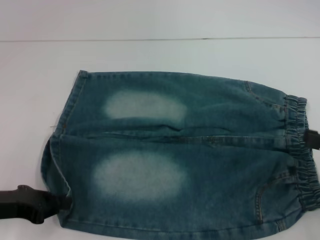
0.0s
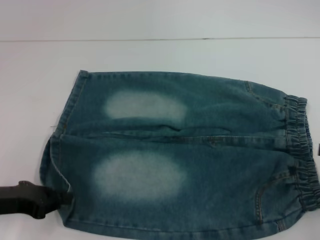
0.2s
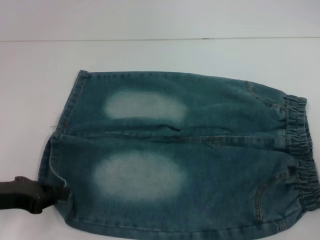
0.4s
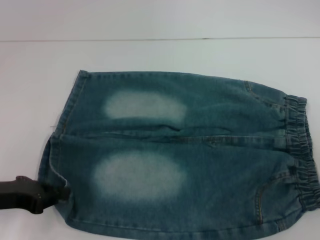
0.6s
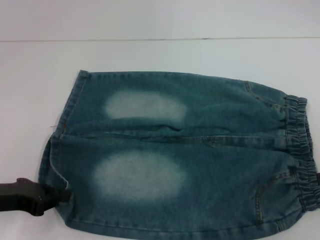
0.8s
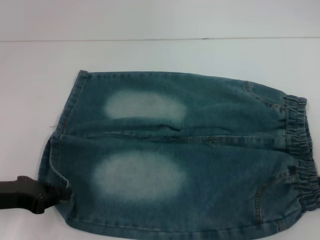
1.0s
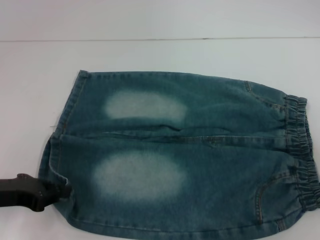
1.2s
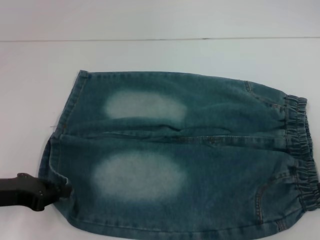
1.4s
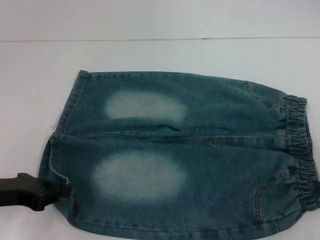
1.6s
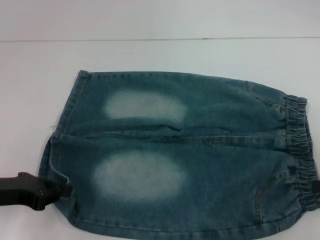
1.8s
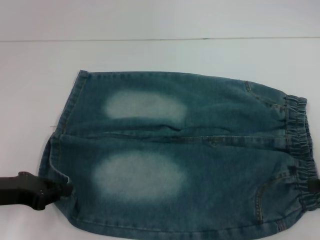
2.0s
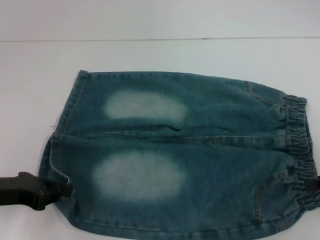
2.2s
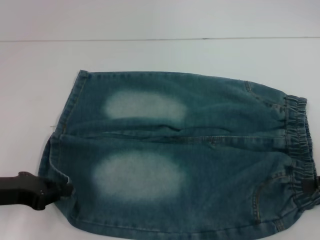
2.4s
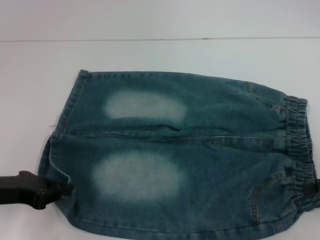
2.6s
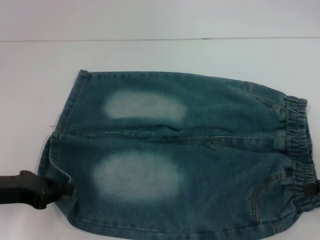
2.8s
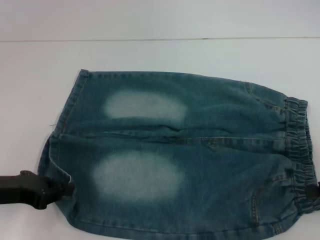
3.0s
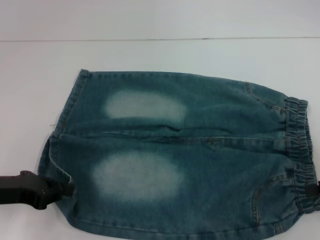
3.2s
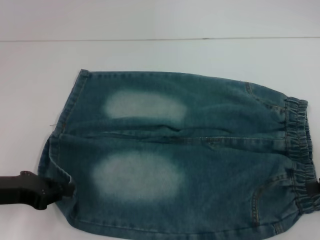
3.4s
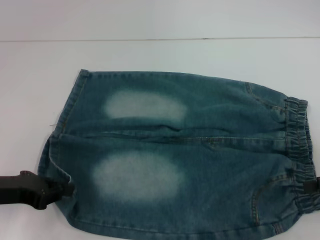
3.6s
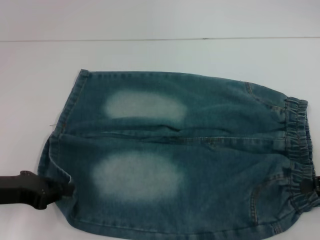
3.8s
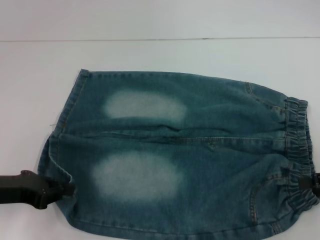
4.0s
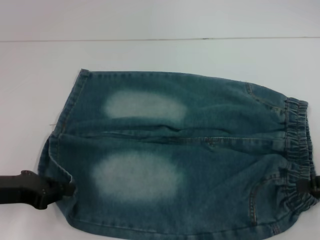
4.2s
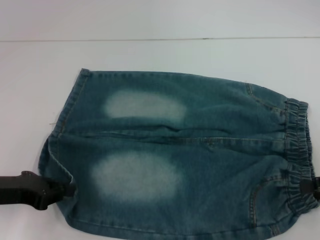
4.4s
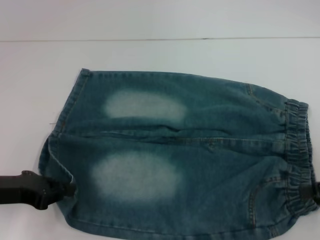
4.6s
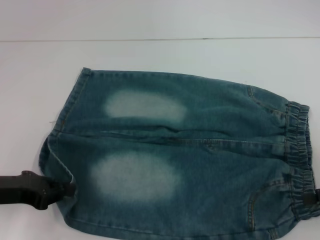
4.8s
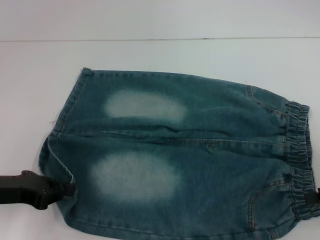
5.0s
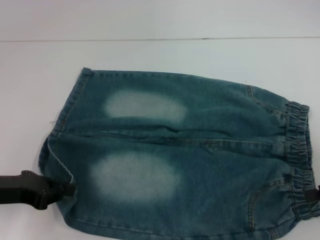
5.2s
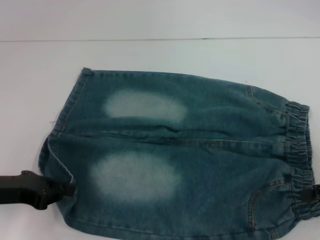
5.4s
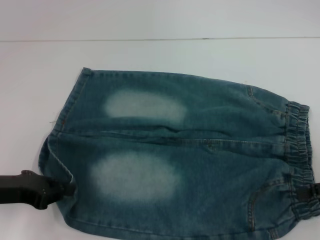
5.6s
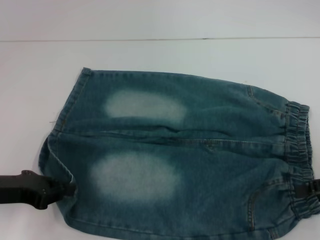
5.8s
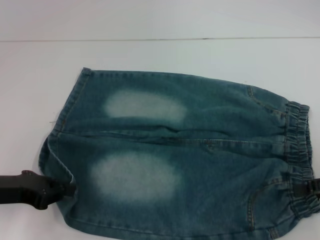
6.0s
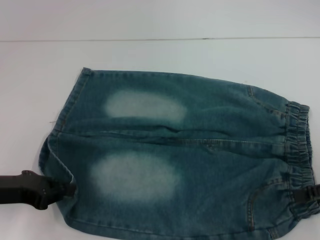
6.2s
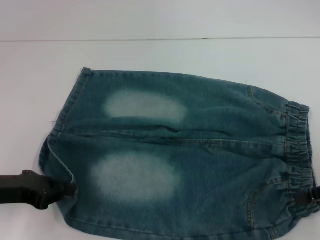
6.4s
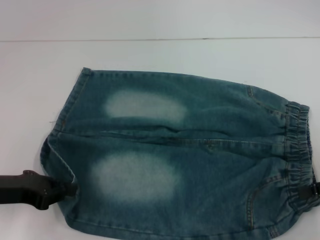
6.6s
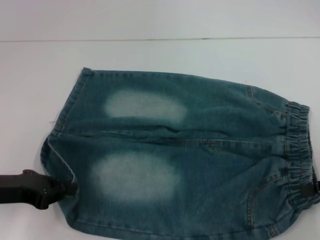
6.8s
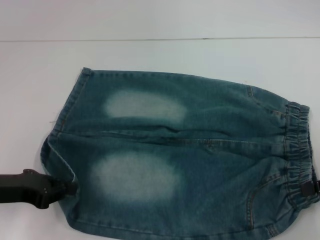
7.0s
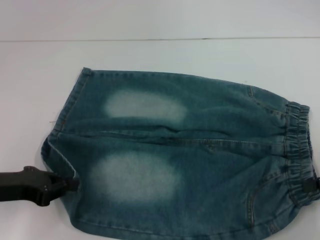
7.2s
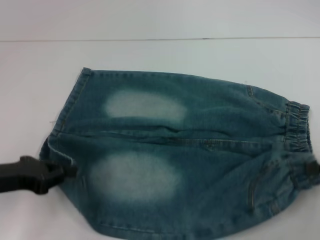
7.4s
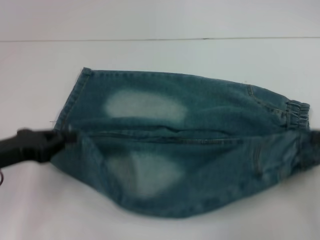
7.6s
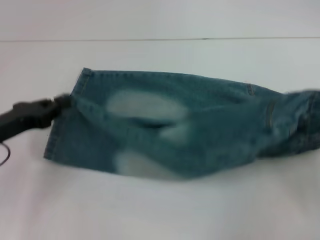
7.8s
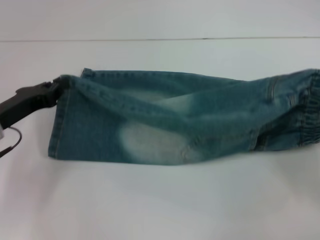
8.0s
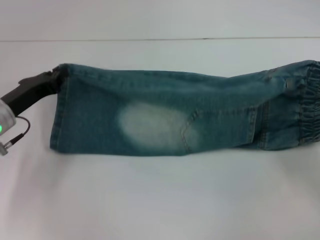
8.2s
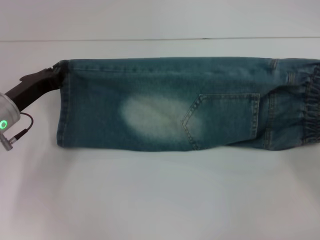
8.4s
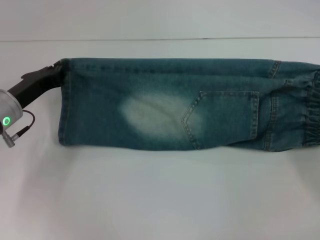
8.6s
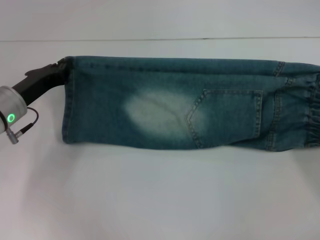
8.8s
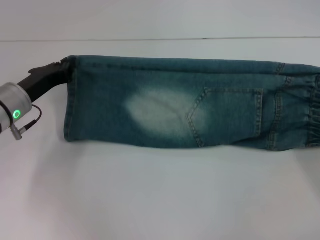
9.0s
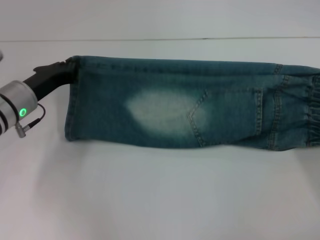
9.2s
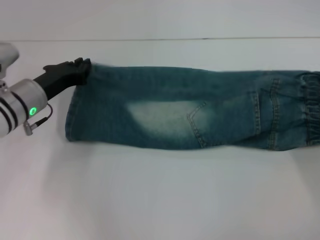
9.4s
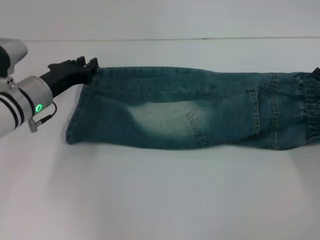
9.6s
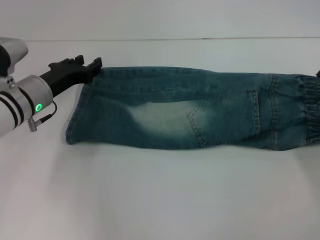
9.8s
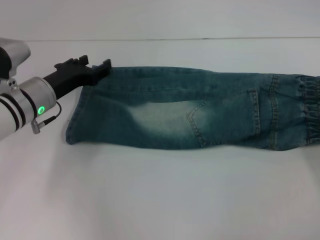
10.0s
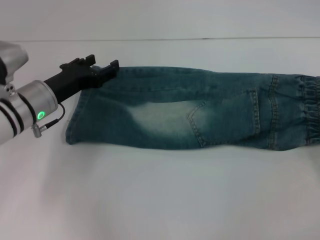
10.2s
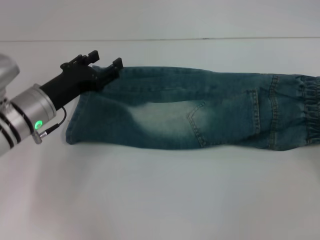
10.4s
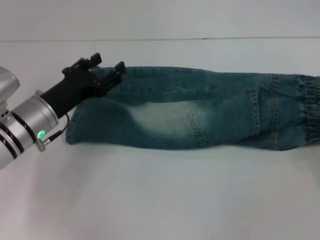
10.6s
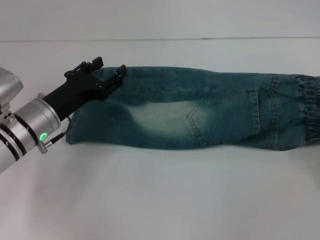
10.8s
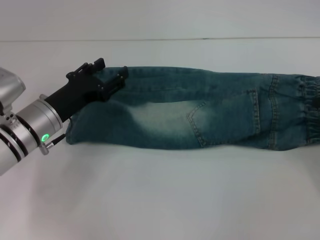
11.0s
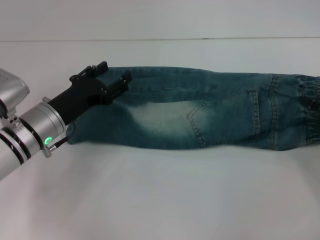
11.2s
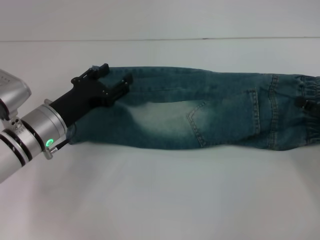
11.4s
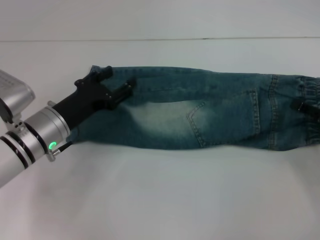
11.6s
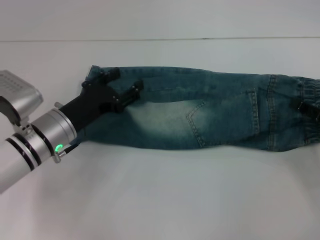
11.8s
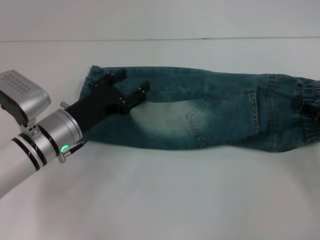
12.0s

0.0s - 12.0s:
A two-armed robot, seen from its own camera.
Step, 0.4s - 6.8s: Grab the lower right pant leg with your right hand.
Step, 7.0s - 10.2s: Fold upward with your right hand.
Step, 10.4s - 12.0s: Grab the waistband with your right hand.
1.6s - 3.0s: There are only small adjustments of the grippers.
3.0s - 4.4s: Both grippers stay about where they are.
4.4s - 6.0s: Both grippers stay about where they are.
6.0s - 7.6s: The right gripper closes.
7.6s - 9.0s: The left gripper shifts roughly 10 cm forward. Meanwhile the right gripper shifts by roughly 5 cm.
9.0s - 10.4s: The right gripper opens, while the left gripper opens up.
10.4s - 12.0s: The right gripper ends up some 5 cm from where it was, and closes its fingers.

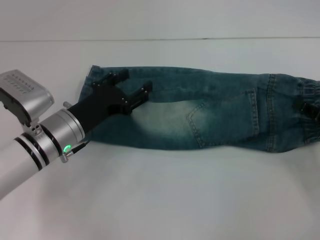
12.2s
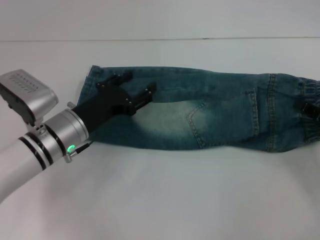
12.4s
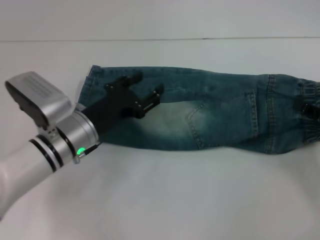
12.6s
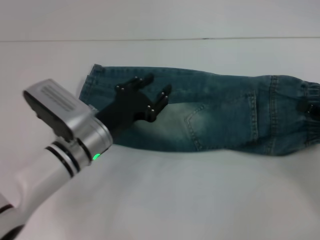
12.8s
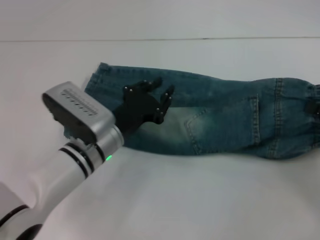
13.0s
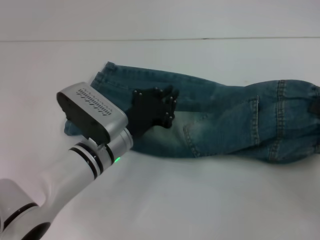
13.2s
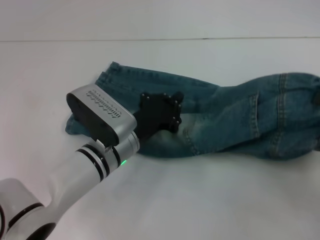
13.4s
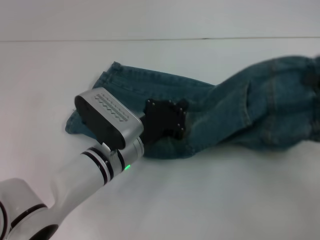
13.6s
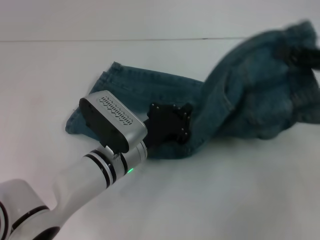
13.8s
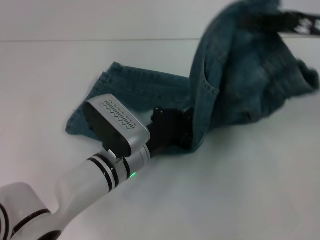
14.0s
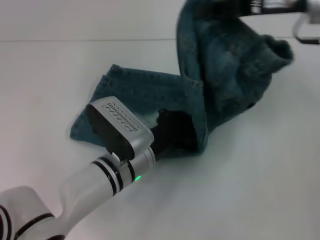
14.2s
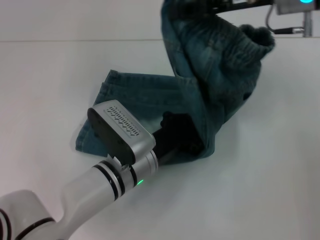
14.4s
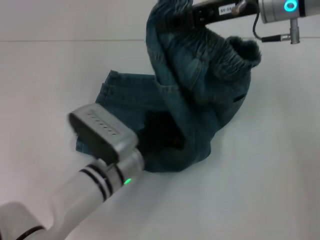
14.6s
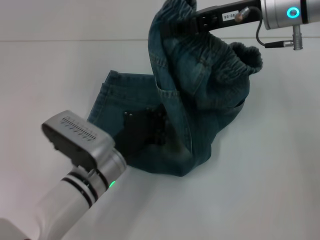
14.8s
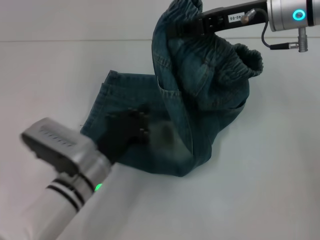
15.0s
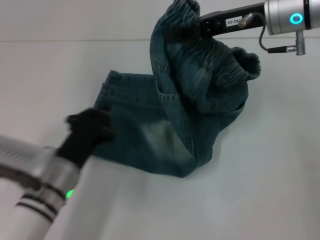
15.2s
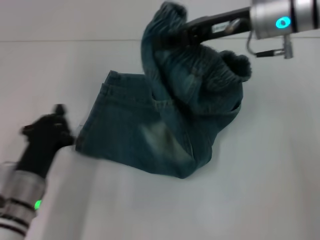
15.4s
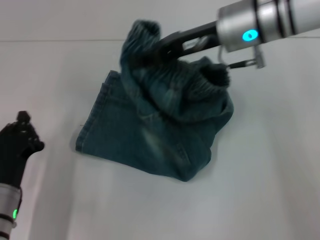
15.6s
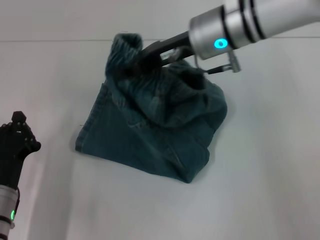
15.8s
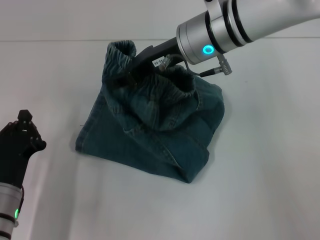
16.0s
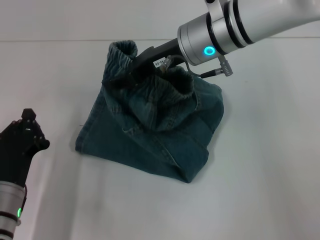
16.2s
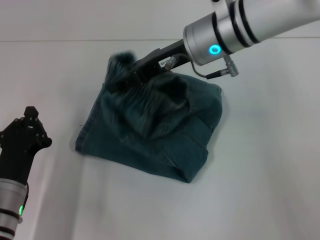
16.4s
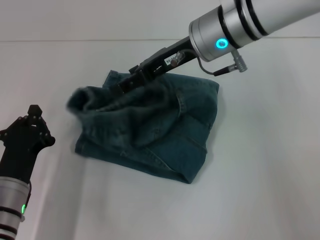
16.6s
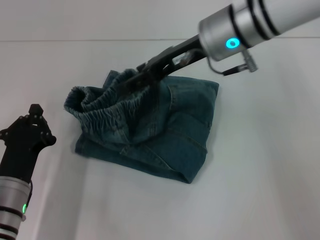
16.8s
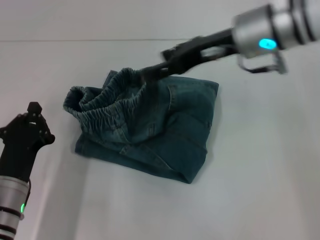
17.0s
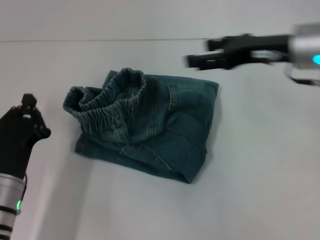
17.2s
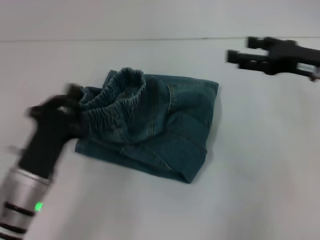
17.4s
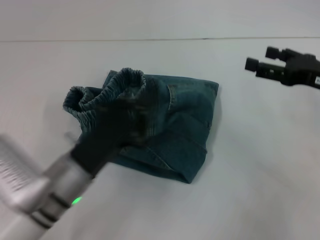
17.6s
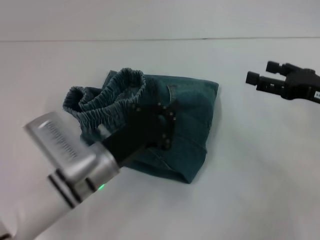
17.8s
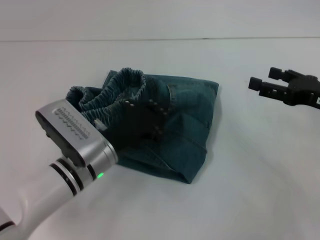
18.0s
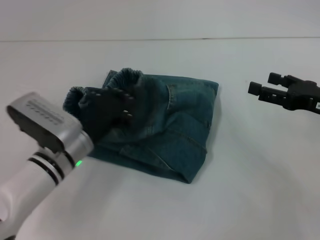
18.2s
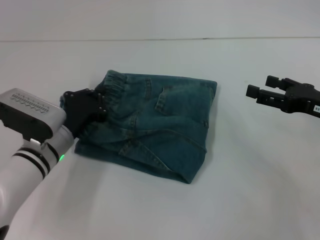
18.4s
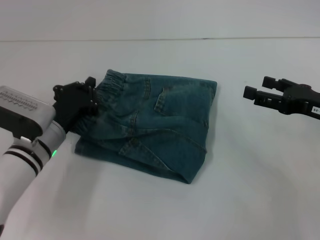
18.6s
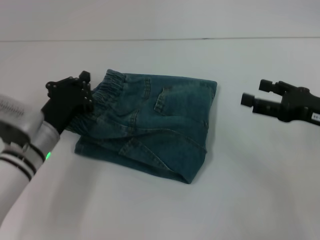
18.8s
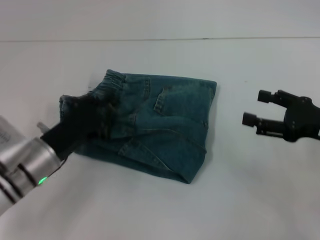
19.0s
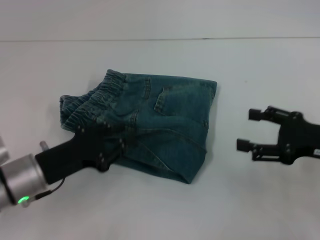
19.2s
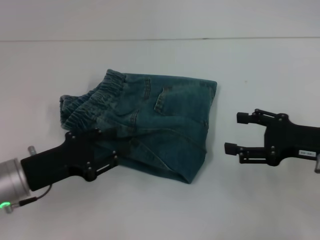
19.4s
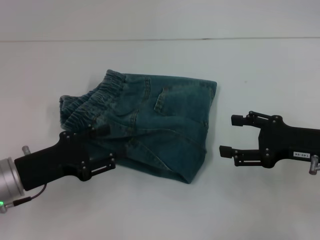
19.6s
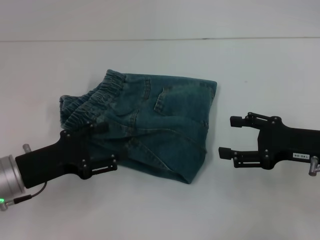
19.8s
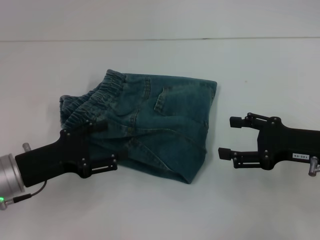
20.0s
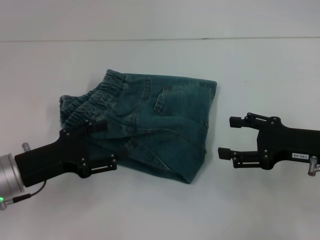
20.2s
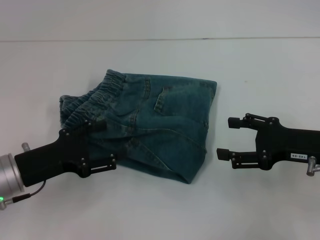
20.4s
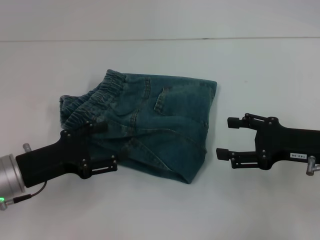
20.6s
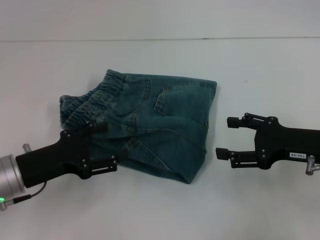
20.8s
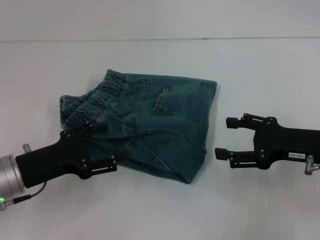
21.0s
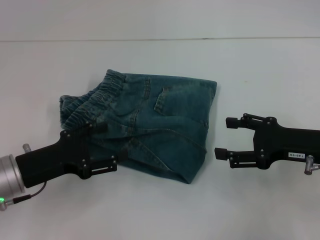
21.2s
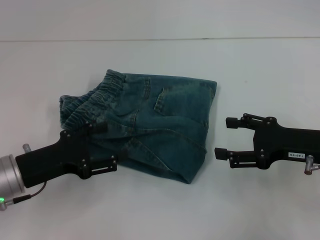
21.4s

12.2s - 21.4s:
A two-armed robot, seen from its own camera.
Step, 12.2s - 14.6s: Press the middle of the pants with your left hand.
Step, 14.8s - 16.8s: Fold to the left with your right hand.
Step, 17.0s - 19.0s: Adjust the pants with your left hand.
12.2s - 13.8s: The right gripper moves upward, approximately 10 cm; the left gripper moves to the right, approximately 10 cm, and closes up.
13.8s - 15.2s: The left gripper goes roughly 10 cm to the left. Meanwhile the right gripper goes about 15 cm to the left and forward.
15.2s - 16.8s: Both grippers travel together to the left, some 5 cm. The right gripper opens its fingers.
16.8s - 18.4s: The left gripper shifts about 10 cm forward, and reaches approximately 10 cm to the right, then returns. Meanwhile the right gripper is displaced to the right, downward and backward by about 25 cm.
18.4s - 19.8s: The left gripper shifts about 10 cm backward and to the left, and opens up.
19.8s - 21.4s: Both grippers stay put.
